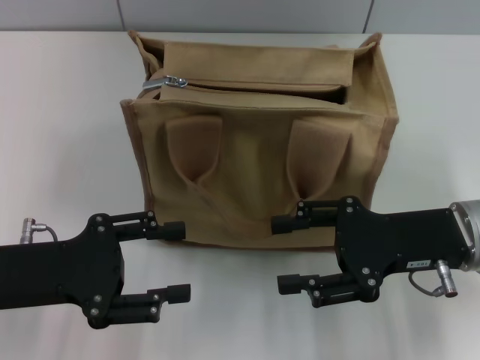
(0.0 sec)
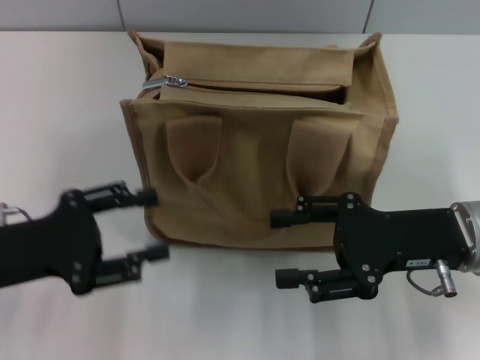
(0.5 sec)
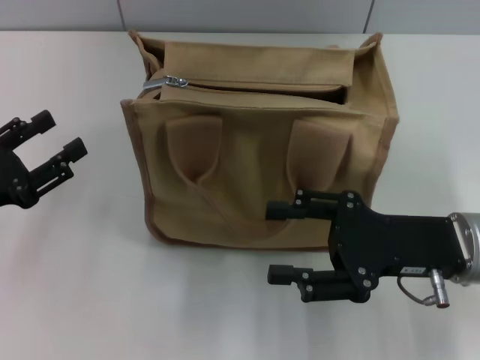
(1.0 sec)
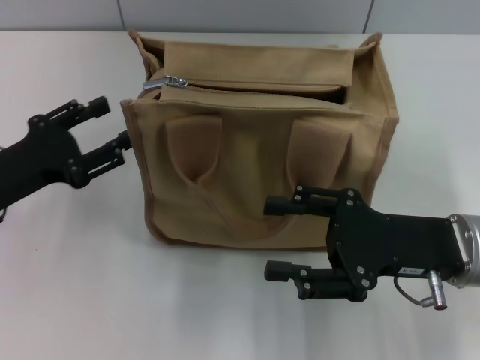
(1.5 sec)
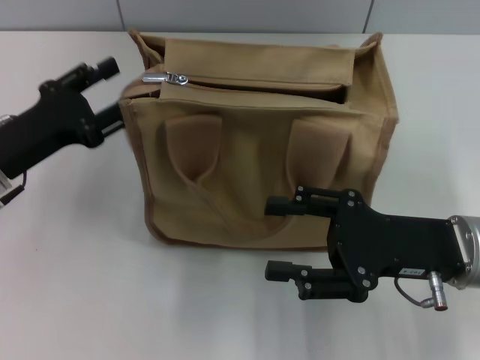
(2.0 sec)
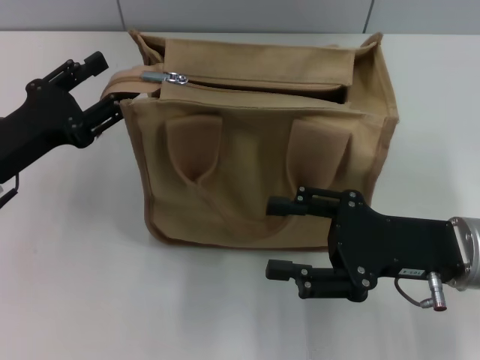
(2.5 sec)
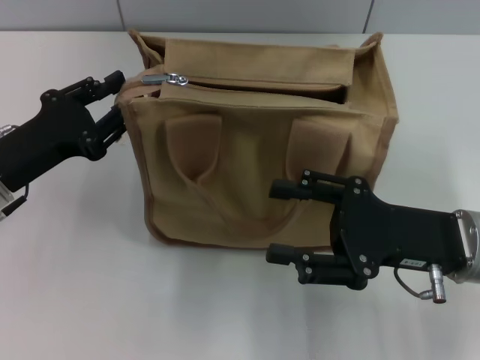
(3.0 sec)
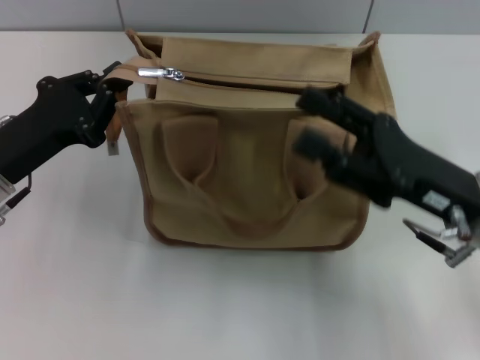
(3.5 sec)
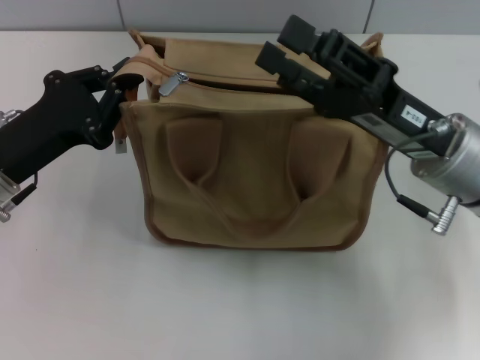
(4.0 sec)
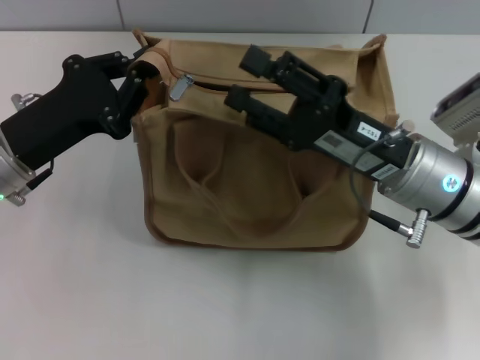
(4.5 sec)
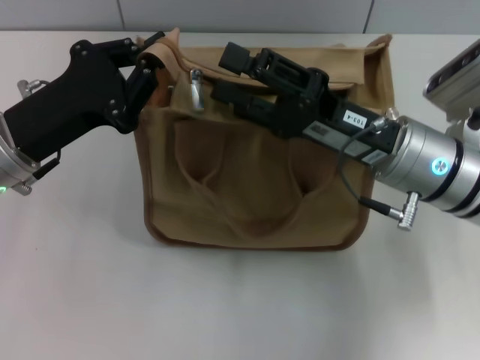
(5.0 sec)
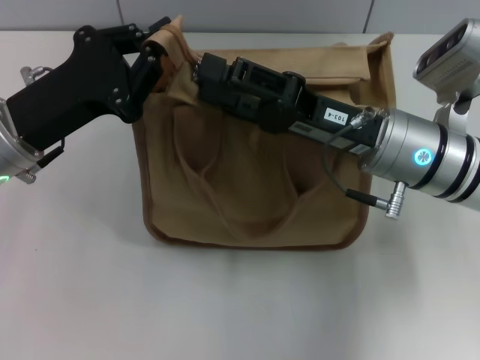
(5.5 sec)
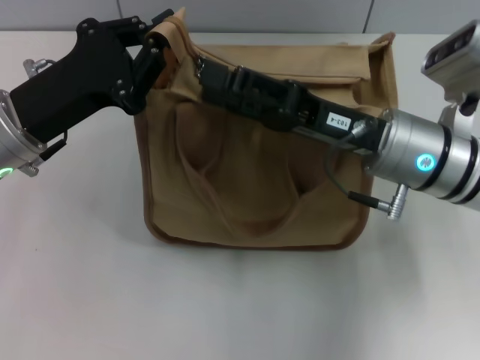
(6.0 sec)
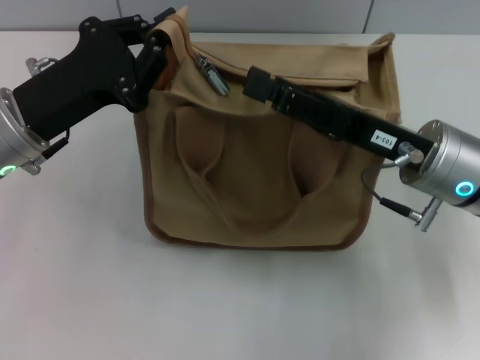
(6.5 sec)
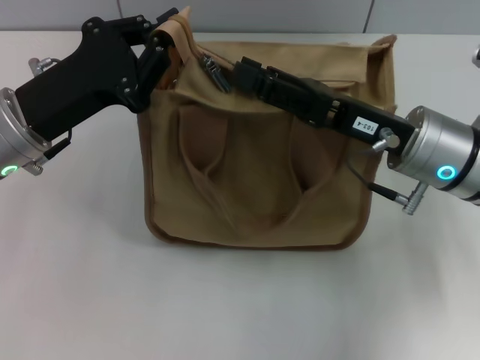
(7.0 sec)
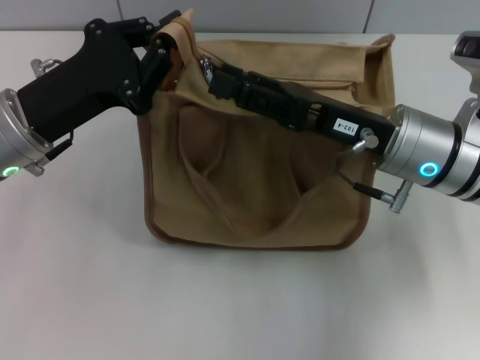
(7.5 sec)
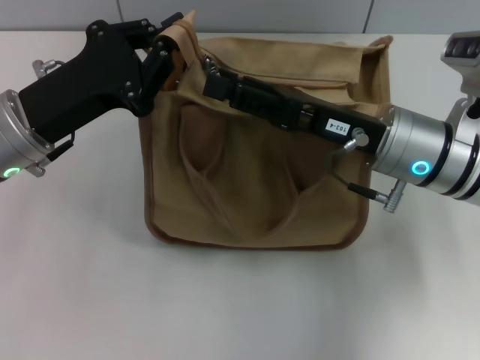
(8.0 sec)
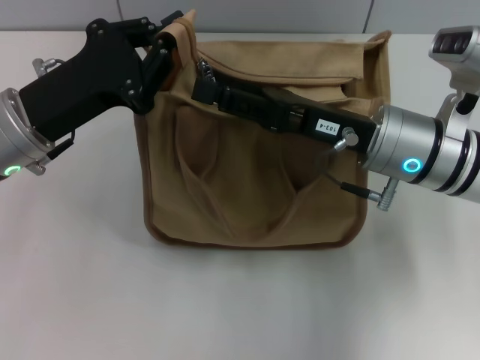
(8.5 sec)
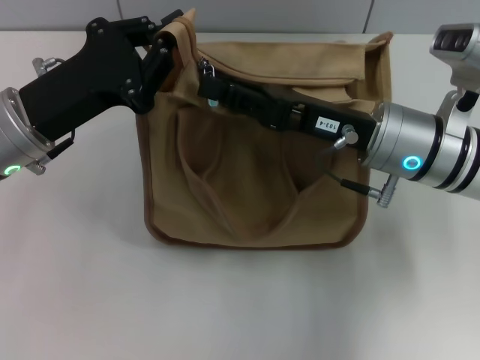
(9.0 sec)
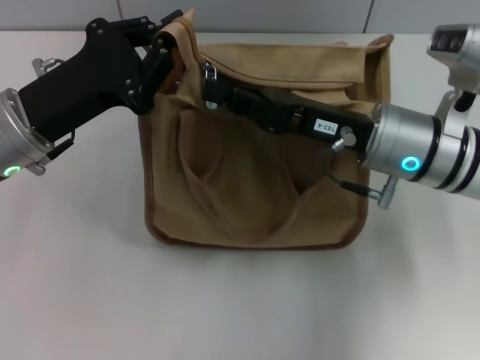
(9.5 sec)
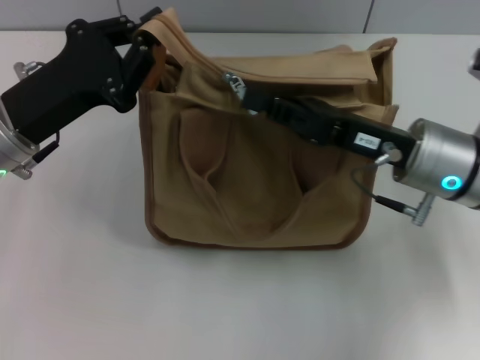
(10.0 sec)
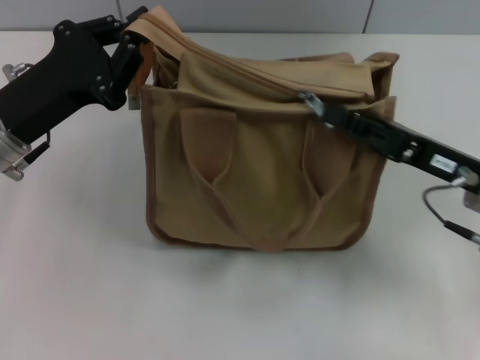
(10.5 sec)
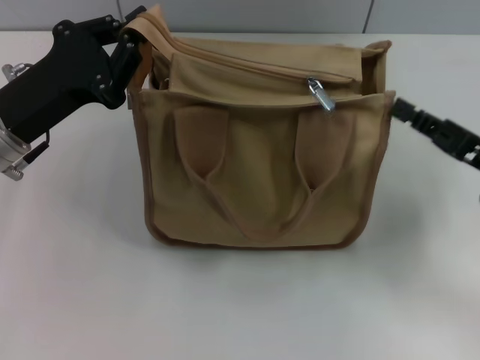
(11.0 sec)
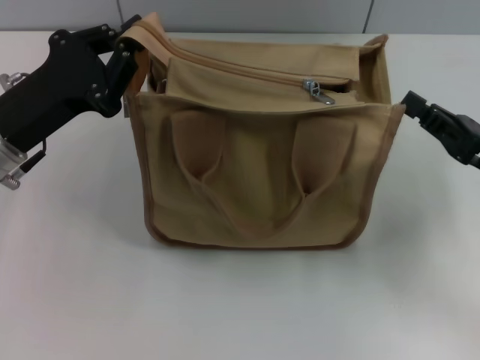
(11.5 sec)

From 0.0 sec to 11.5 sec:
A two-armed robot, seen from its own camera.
Step, from 0.0 sec to 10.5 sec: Grab the zipper with your left hand.
From 0.0 sec to 2.0 sec: The left gripper shifts roughly 5 cm forward.
From 2.0 sec to 4.0 sec: The right gripper moves approximately 5 cm. The left gripper closes.
From 4.0 sec to 6.0 sec: The left gripper shifts by about 5 cm.
From 7.5 sec to 9.5 sec: The right gripper closes its fingers.
From 9.5 sec to 11.5 sec: The right gripper moves to the right and backward, roughly 15 cm.

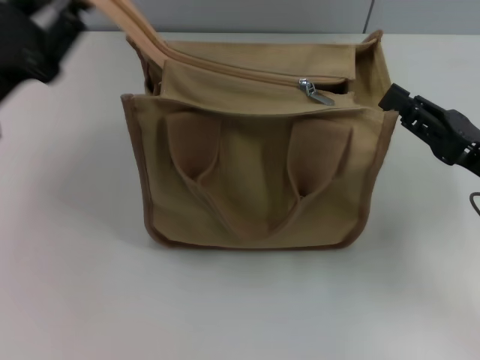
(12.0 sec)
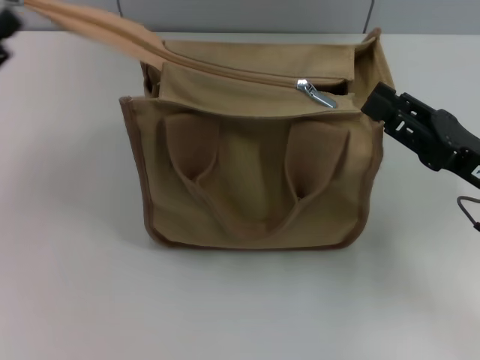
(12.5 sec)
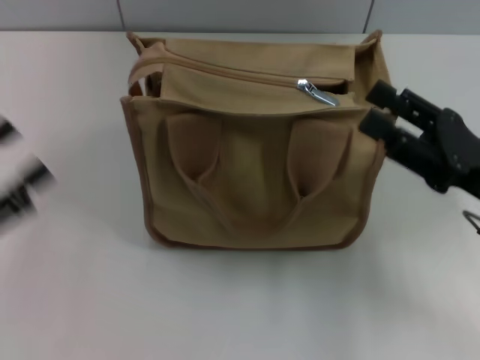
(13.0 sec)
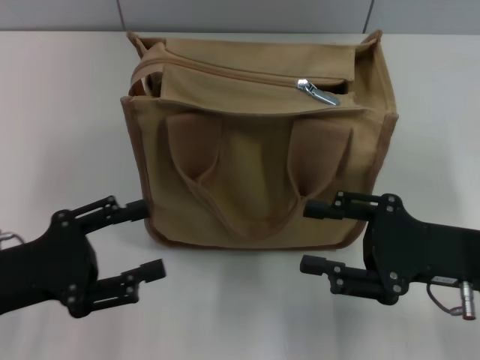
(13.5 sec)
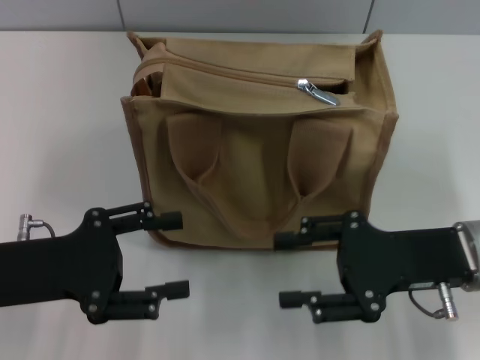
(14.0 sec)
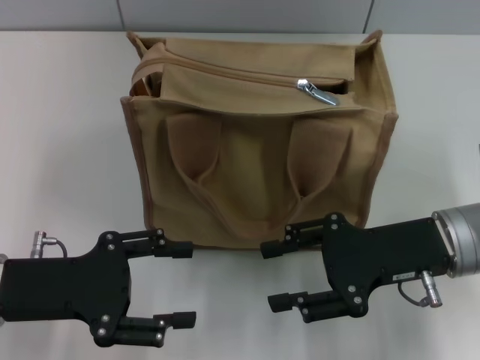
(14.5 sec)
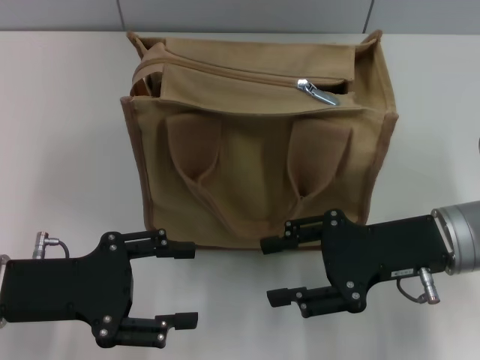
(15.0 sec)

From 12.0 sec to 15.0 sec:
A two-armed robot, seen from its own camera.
From 12.0 sec to 13.5 sec: The left gripper travels backward and downward by some 10 cm, and opens its fingers. Meanwhile the right gripper opens its fingers.
From 13.5 sec to 15.0 sec: The right gripper ends up about 5 cm from where it was.

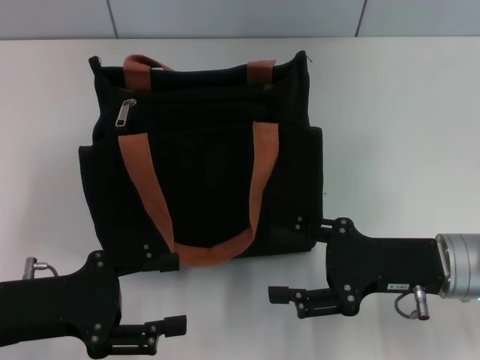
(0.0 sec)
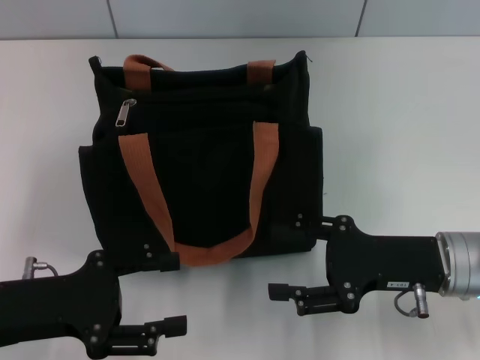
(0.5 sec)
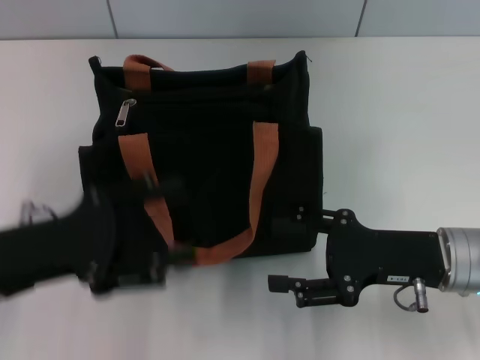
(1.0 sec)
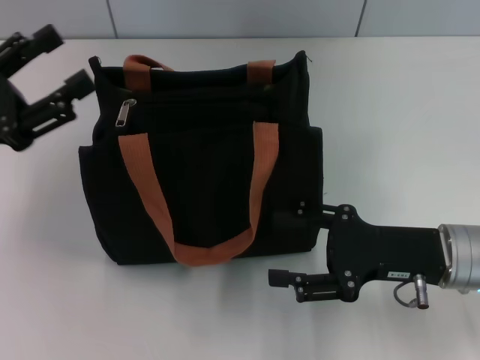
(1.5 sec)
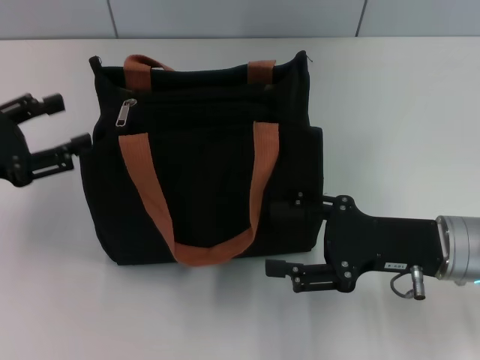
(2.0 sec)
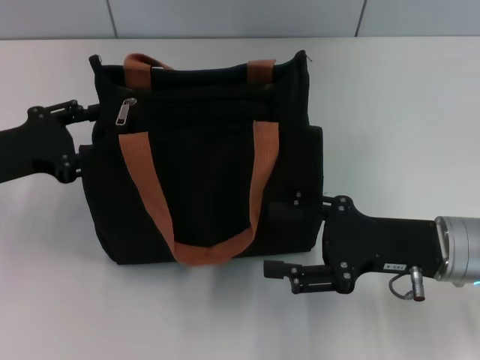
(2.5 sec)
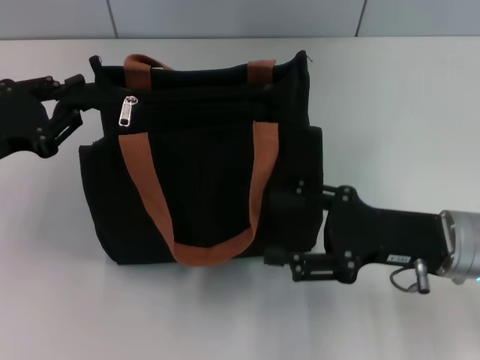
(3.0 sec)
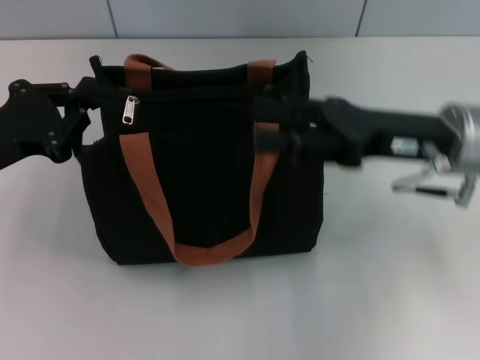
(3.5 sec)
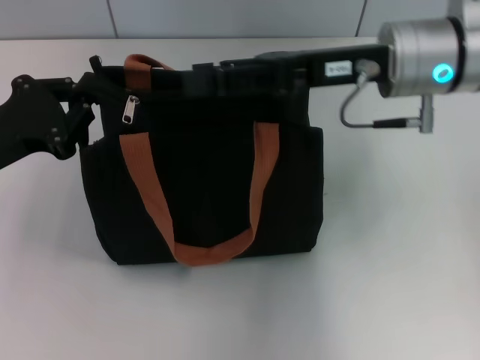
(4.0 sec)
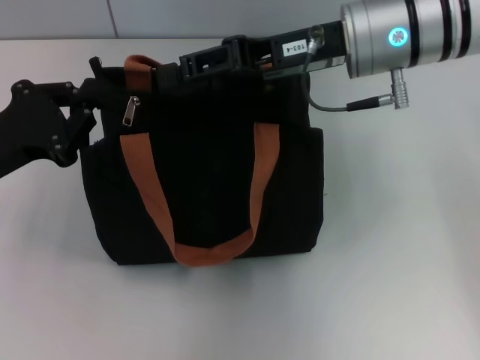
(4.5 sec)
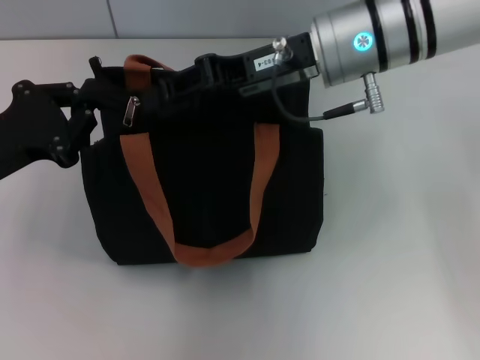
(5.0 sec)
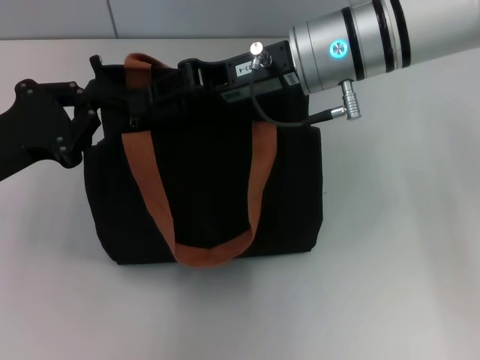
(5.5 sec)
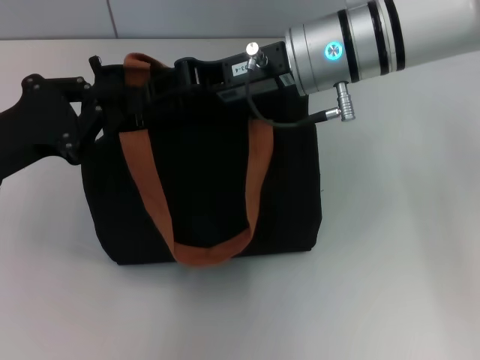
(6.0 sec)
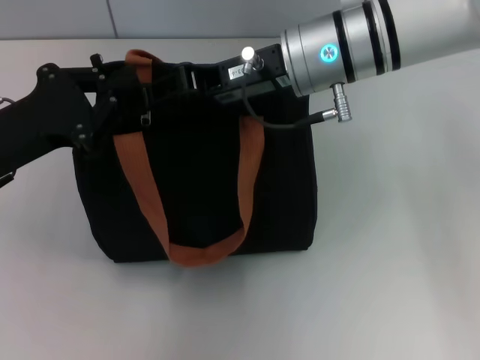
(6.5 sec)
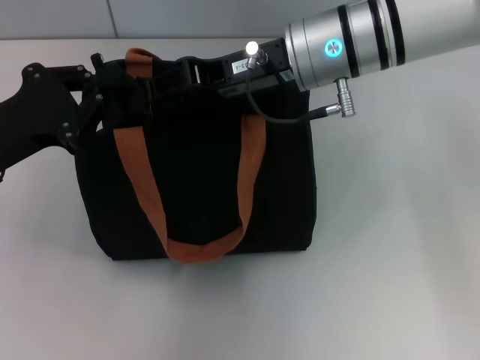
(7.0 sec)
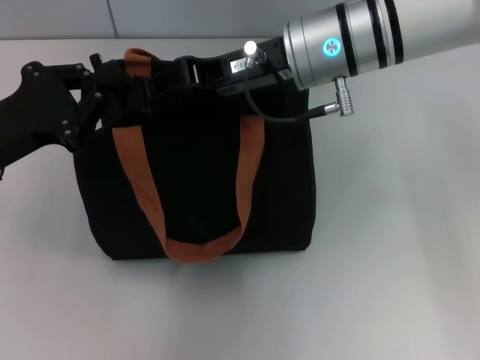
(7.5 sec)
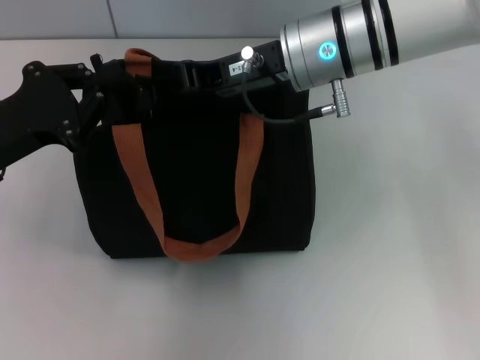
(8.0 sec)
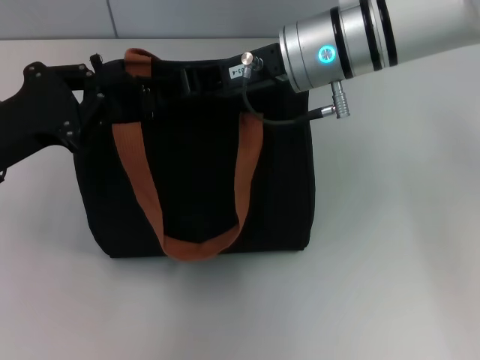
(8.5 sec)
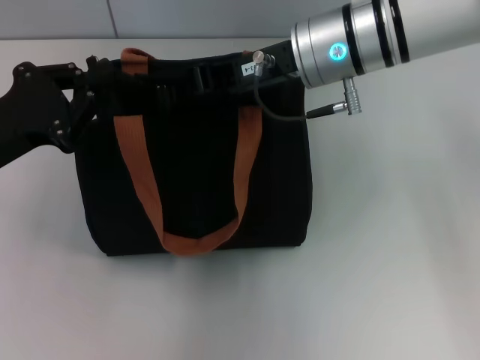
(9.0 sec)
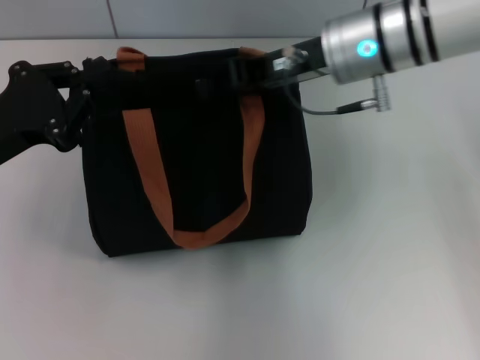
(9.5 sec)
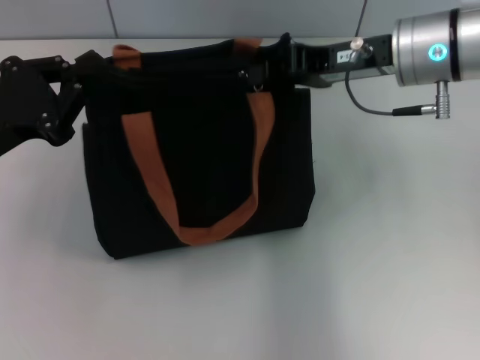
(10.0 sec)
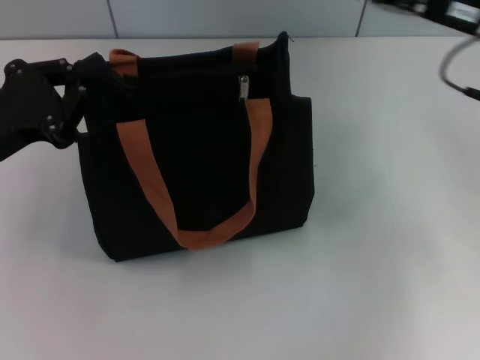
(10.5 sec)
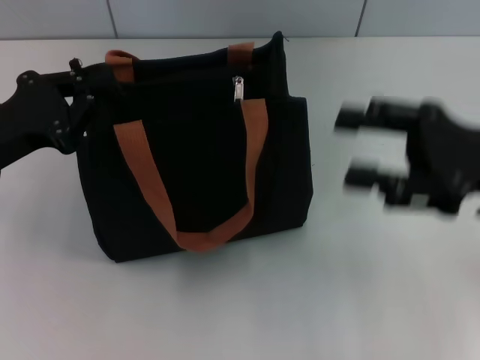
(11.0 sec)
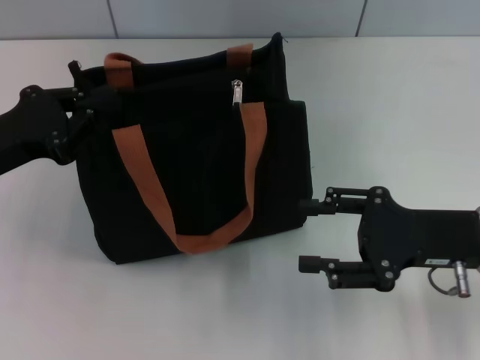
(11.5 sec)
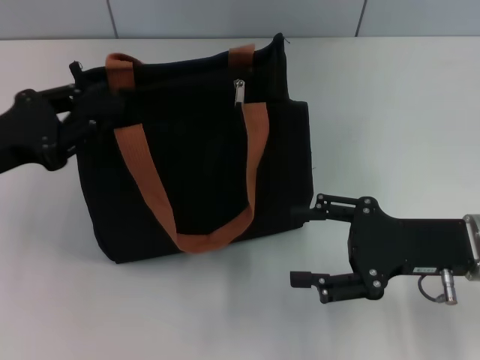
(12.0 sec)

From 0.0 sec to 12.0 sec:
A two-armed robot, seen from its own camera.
Step, from 0.0 sec to 10.0 sec: Pull up the zipper with your right hand.
From 0.0 sec to 2.0 sec: The left gripper heads forward and to the left, covering some 10 cm.
From 2.0 sec to 4.0 sec: The left gripper closes up. Meanwhile the right gripper is displaced upward, forward and to the left by roughly 20 cm.
From 4.0 sec to 6.0 sec: The right gripper travels to the left by some 5 cm, and closes up.
From 6.0 sec to 8.0 sec: There are only small adjustments of the grippers.
From 8.0 sec to 10.0 sec: The right gripper moves to the right, some 10 cm.
From 10.0 sec to 12.0 sec: The right gripper travels backward, downward and to the right by roughly 20 cm, and opens its fingers.
